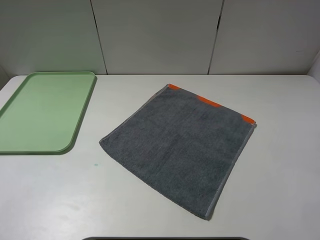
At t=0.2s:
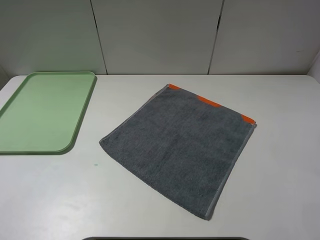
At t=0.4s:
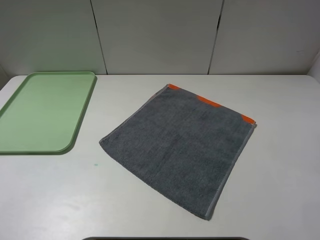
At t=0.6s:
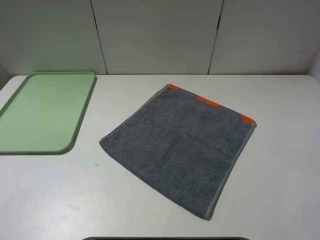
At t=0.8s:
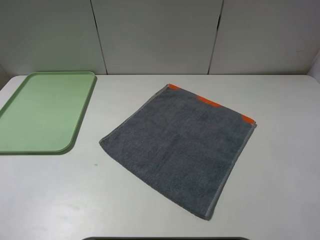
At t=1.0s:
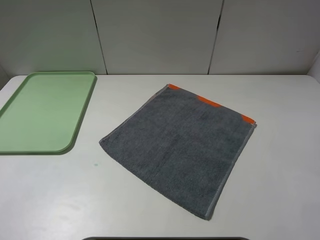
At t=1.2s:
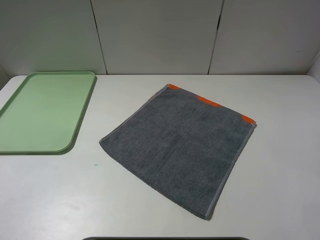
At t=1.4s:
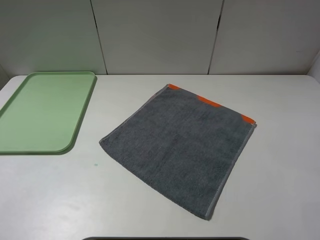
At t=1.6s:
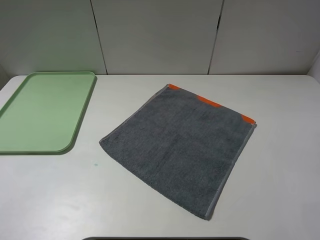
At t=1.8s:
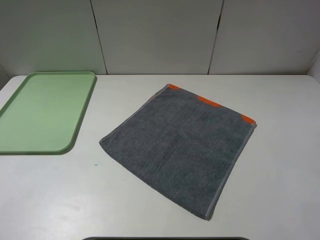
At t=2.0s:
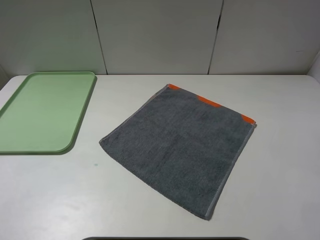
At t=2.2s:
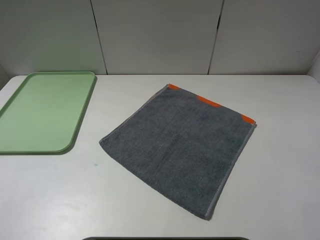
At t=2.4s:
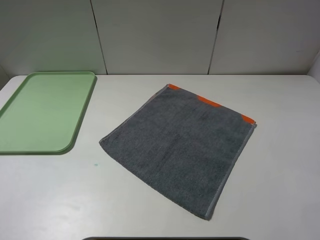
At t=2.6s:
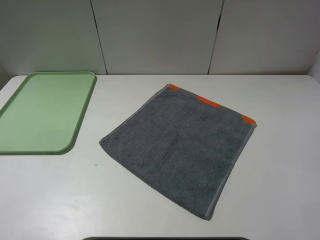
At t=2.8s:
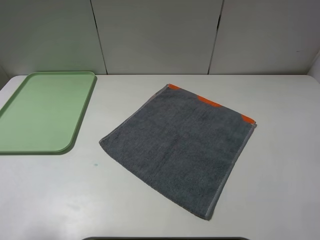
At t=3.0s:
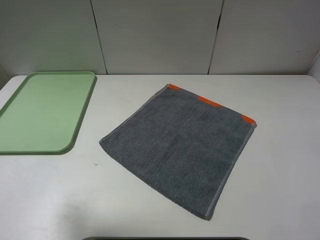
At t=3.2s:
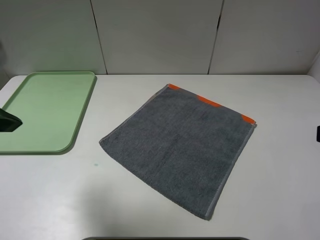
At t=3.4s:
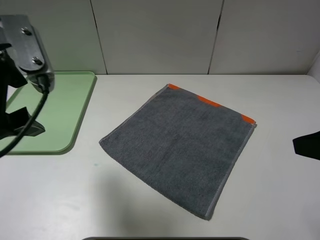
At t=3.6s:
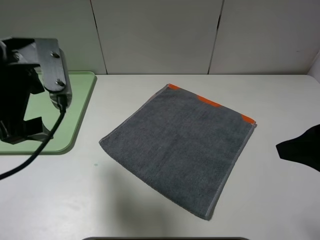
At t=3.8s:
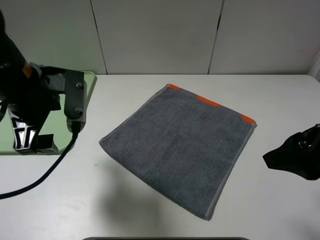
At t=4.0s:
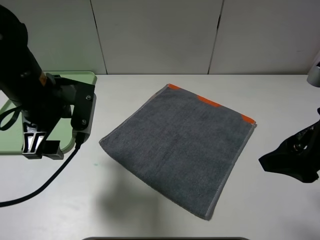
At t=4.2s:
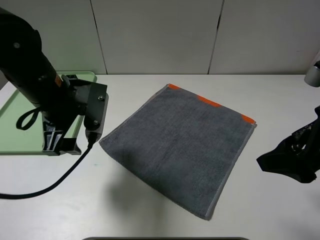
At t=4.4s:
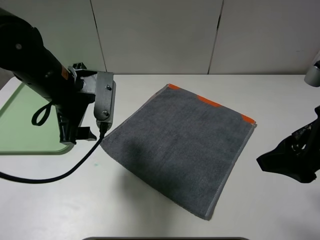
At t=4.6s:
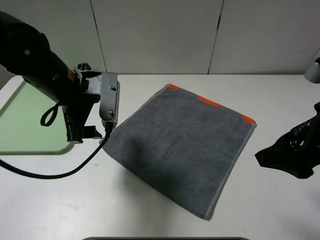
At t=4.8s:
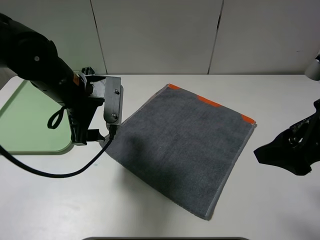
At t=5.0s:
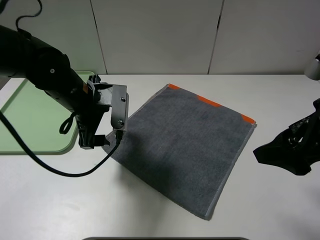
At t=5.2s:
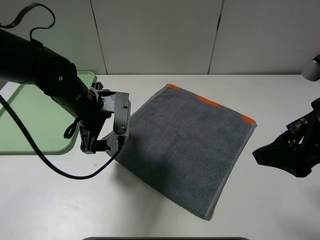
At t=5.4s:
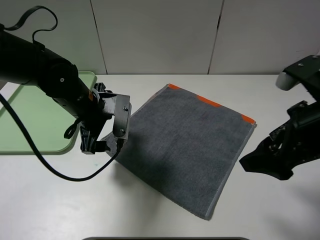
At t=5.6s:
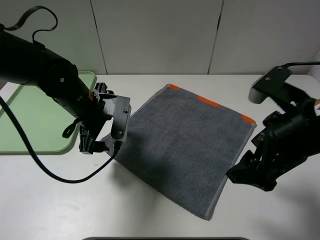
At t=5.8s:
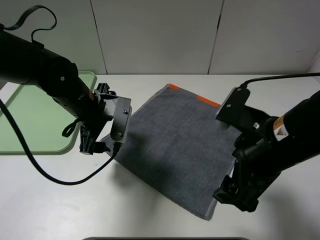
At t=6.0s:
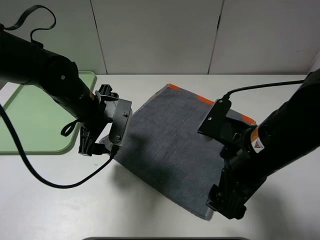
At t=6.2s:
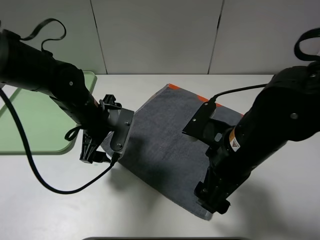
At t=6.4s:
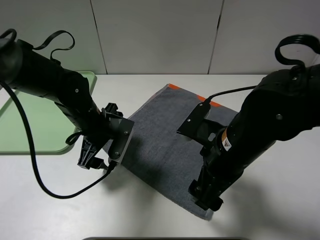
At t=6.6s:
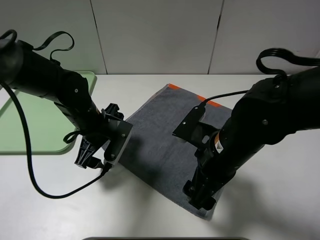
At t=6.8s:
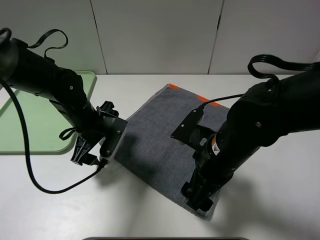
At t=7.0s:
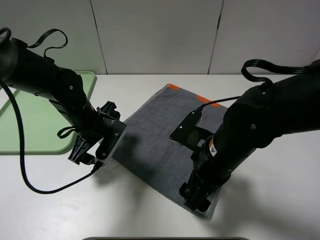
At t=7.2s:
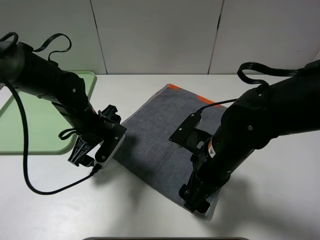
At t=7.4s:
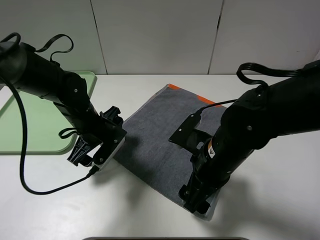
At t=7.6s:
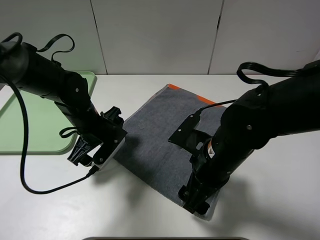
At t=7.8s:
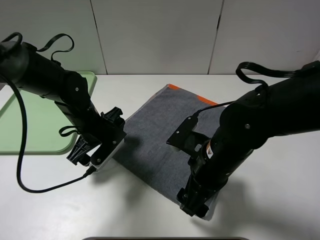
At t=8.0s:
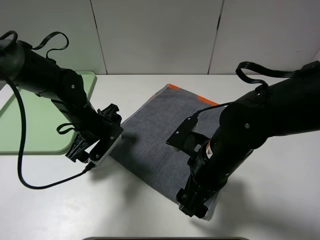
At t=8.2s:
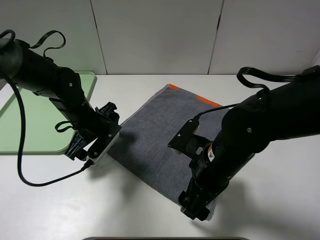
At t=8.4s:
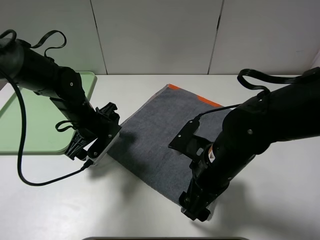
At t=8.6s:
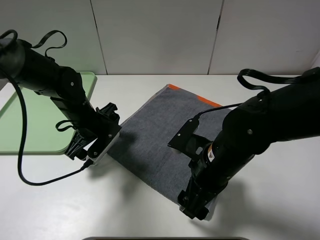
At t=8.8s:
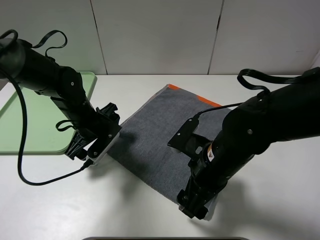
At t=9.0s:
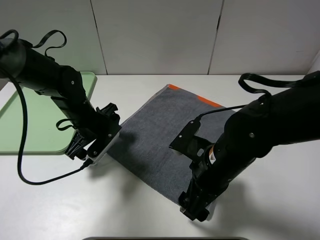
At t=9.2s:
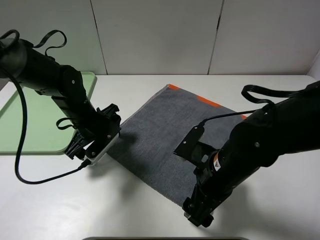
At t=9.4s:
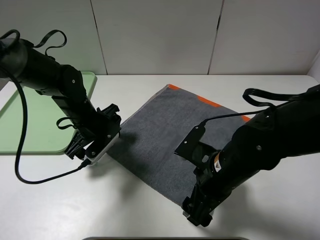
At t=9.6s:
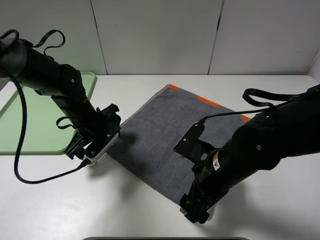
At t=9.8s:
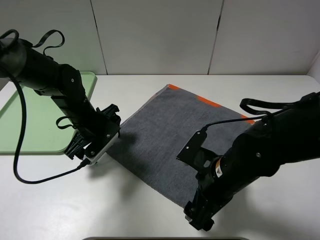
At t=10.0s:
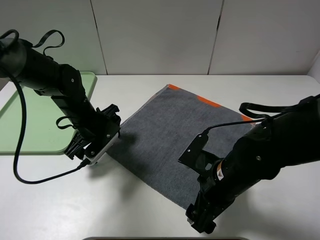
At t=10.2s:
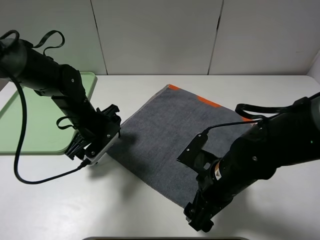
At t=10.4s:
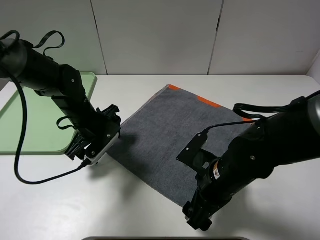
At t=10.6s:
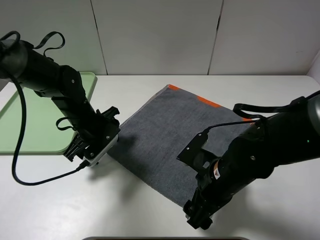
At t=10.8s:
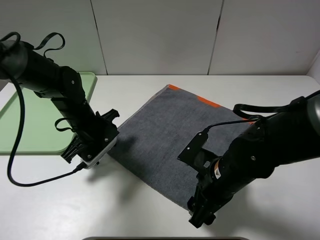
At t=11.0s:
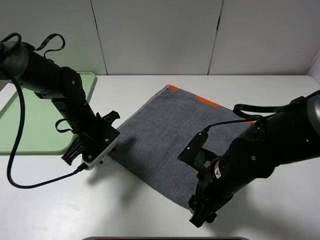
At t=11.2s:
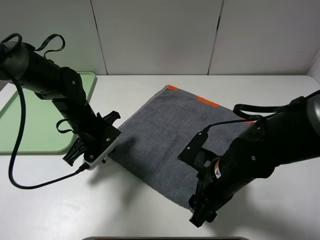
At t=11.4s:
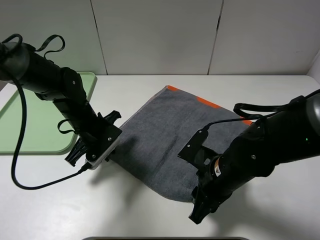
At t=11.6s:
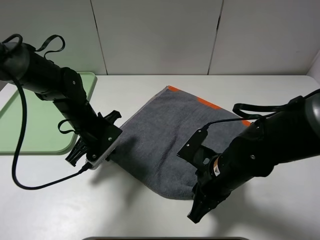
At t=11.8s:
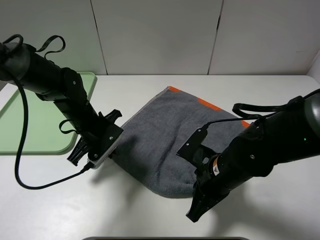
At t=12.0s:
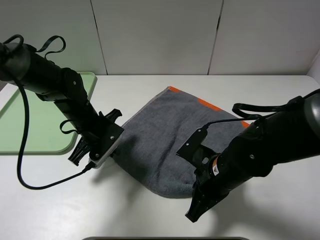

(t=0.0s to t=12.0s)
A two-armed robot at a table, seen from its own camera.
t=0.0s - t=1.6s: Both grippers stay put.
t=1.6s - t=3.0s: The right gripper goes approximately 5 cm forward. Meanwhile the left gripper is displaced forward and upward by approximately 15 cm.
t=3.0s - t=4.4s: The left gripper shifts some 20 cm forward, downward and to the right. Meanwhile the right gripper goes about 5 cm forward.
t=4.4s - t=6.0s: The right gripper is displaced to the left and downward by about 15 cm, while the left gripper moves downward, about 5 cm.
t=6.0s - t=7.6s: Both grippers move downward, some 5 cm.
t=7.6s - t=10.4s: There are only small adjustments of the grippers.
t=10.4s - t=12.0s: The left gripper closes up. The right gripper closes up.

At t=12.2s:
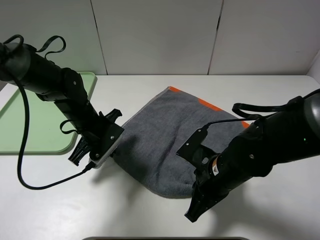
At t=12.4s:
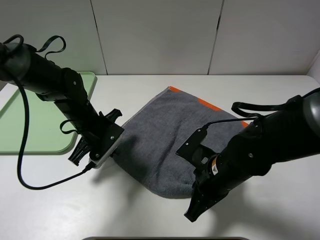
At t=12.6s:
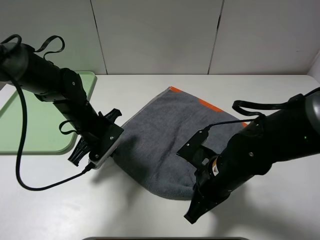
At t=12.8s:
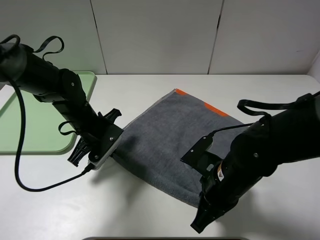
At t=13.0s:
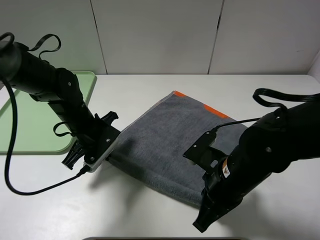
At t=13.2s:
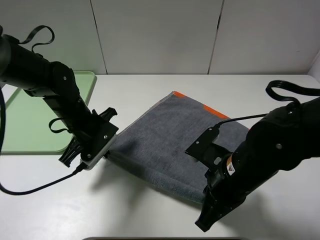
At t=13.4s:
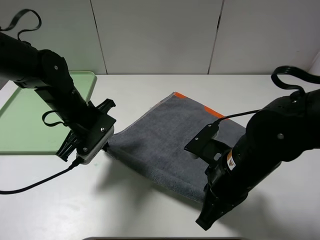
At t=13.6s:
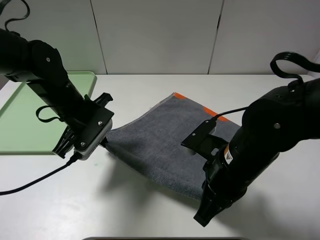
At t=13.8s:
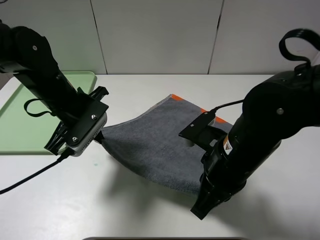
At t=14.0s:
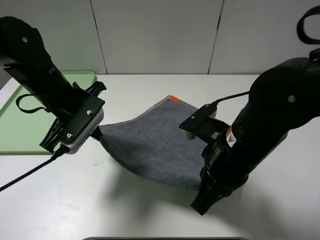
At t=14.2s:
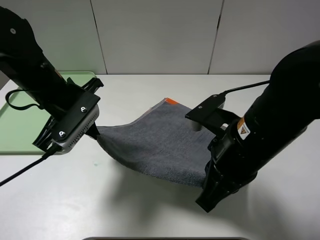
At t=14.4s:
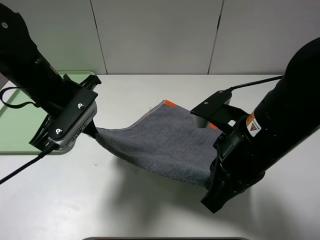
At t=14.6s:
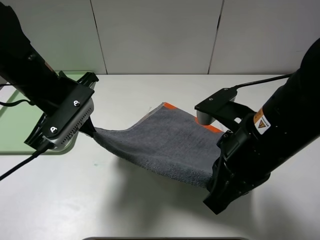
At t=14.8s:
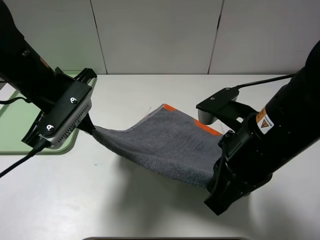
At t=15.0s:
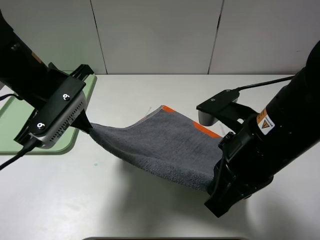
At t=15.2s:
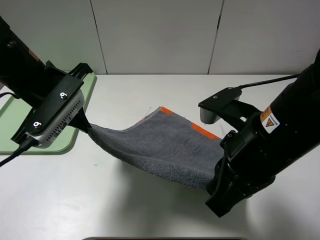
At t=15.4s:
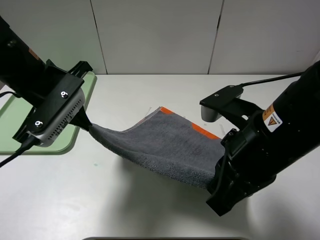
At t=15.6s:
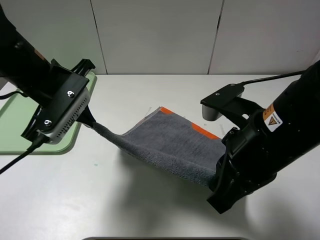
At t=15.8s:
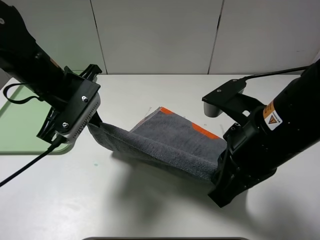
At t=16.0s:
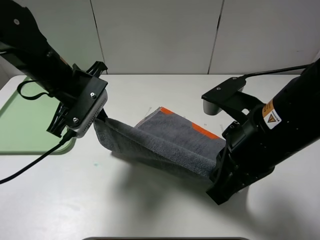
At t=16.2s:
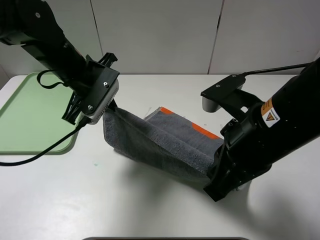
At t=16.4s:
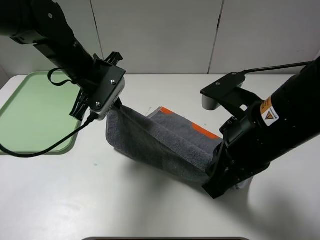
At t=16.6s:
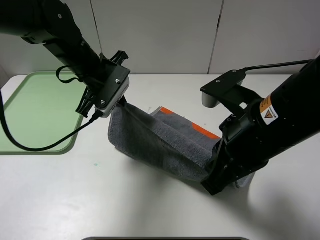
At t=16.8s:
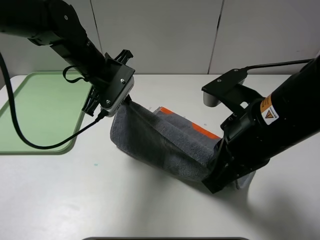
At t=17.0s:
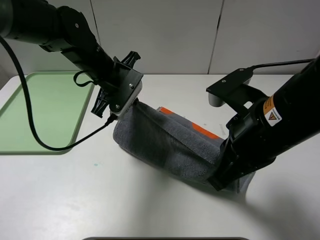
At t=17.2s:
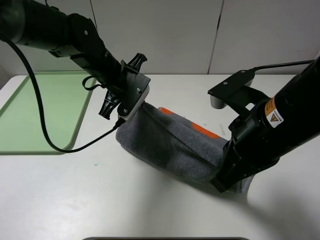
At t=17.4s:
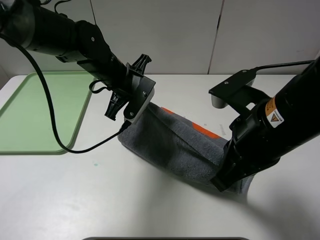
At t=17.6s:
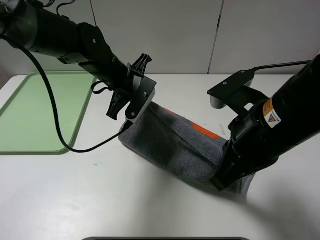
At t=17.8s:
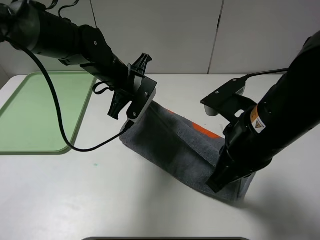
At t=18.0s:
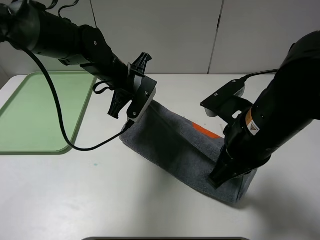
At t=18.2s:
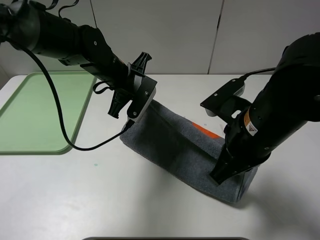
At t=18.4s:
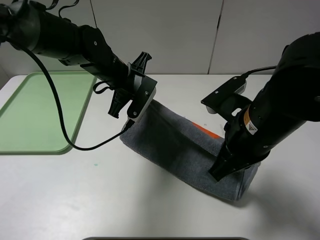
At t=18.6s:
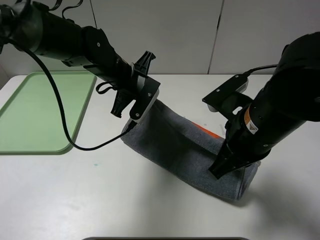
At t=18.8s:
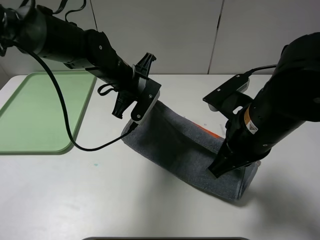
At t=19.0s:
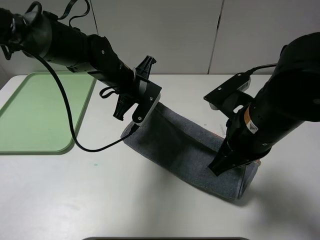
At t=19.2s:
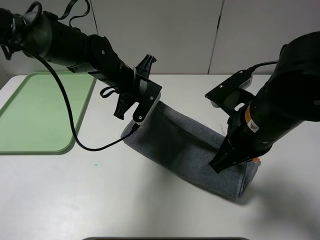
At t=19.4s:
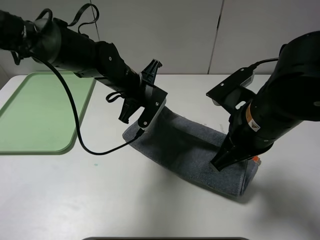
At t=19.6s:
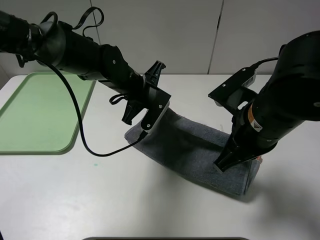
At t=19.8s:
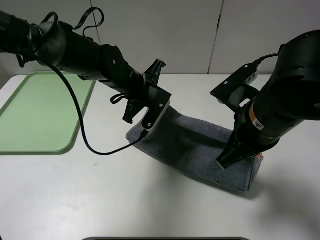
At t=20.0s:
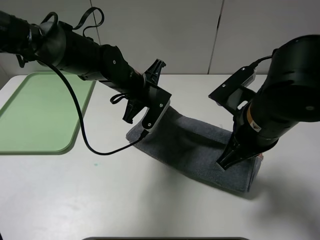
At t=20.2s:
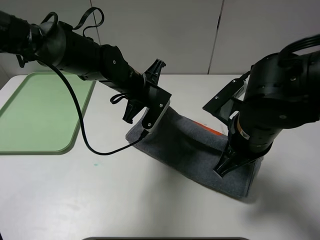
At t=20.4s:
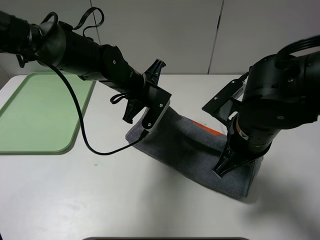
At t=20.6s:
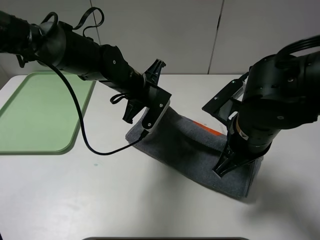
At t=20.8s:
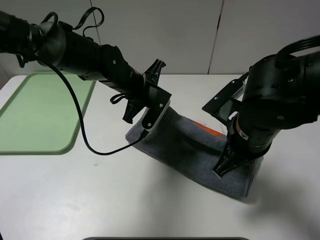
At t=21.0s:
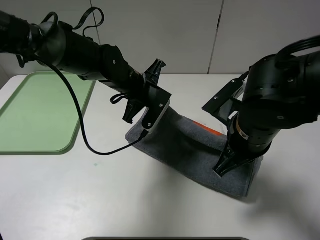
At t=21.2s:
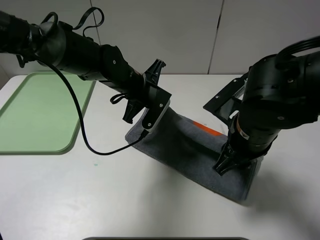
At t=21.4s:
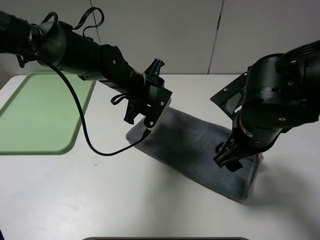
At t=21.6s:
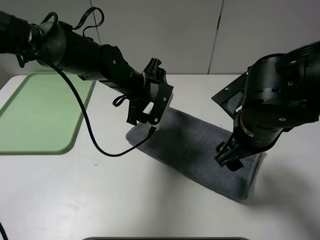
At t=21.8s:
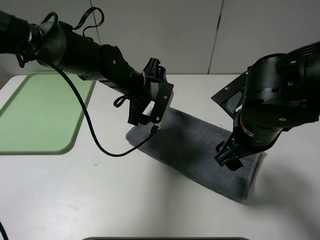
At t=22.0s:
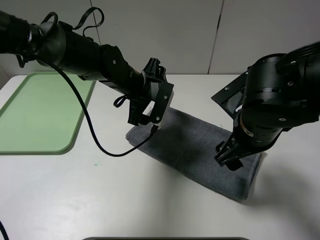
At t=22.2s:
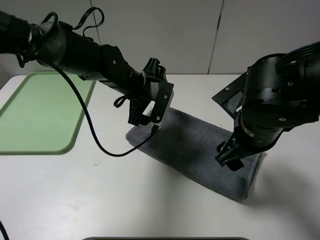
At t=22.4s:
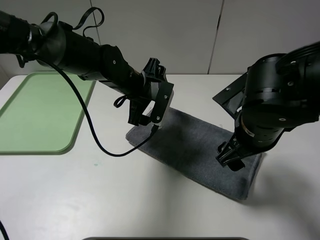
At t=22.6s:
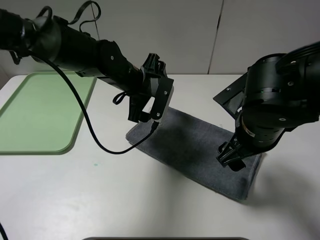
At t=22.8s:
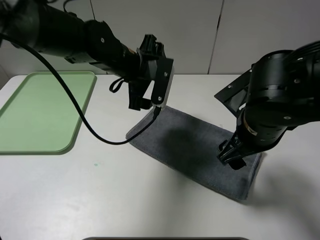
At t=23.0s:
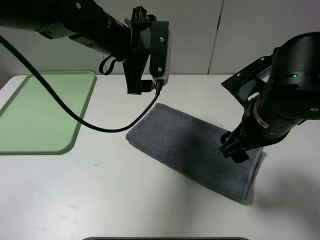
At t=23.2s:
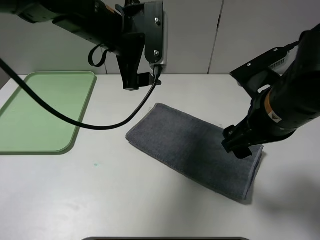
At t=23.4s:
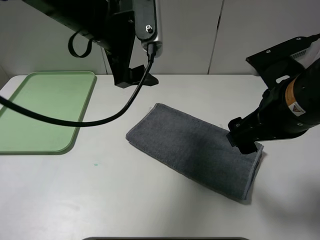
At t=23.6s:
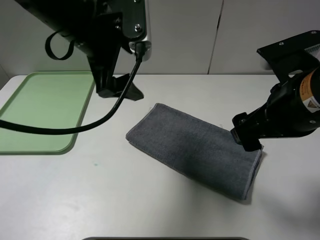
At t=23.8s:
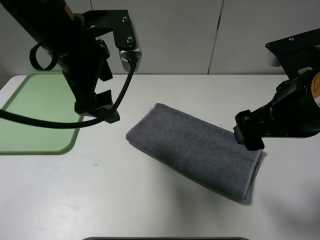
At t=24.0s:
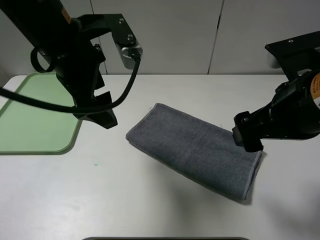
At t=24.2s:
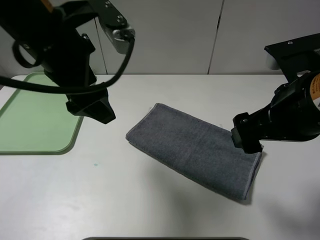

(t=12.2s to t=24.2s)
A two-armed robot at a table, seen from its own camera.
Step, t=12.2s - t=21.6s: Fold the grey towel upwards.
t=12.2s - t=13.8s: Both grippers move upward, some 10 cm.
t=13.8s - t=15.2s: Both grippers move upward, some 5 cm.
t=15.2s - t=16.6s: The left gripper is displaced forward by roughly 10 cm.
t=16.6s - t=18.2s: The left gripper changes place by approximately 5 cm.
t=19.8s - t=21.2s: The right gripper opens up.
t=21.2s - t=22.6s: The right gripper opens up. Meanwhile the left gripper opens.
t=22.6s - t=24.2s: The left gripper is displaced upward, backward and to the left by about 20 cm. Meanwhile the right gripper is displaced upward by roughly 10 cm.
